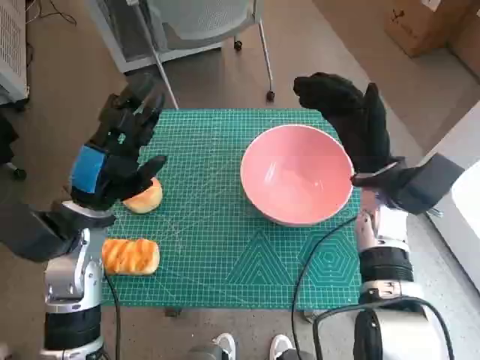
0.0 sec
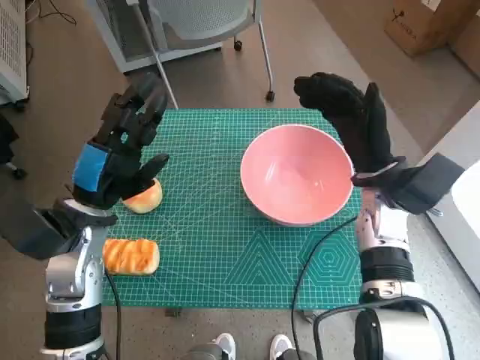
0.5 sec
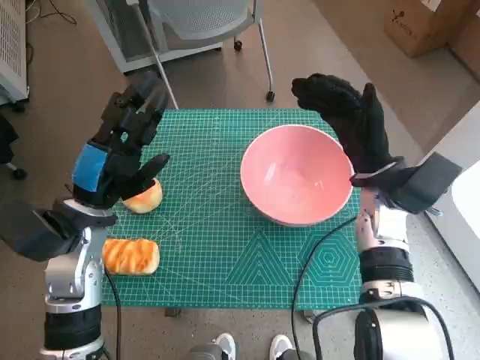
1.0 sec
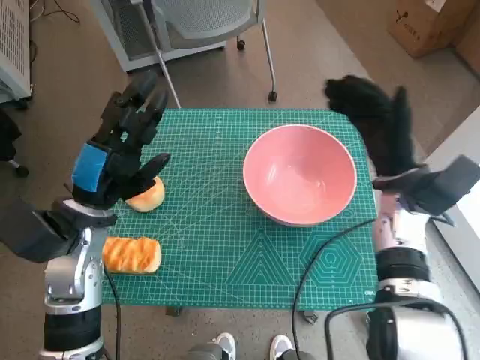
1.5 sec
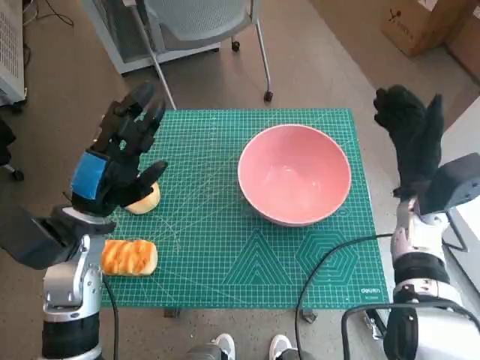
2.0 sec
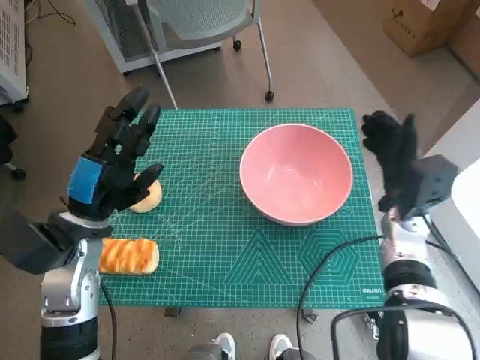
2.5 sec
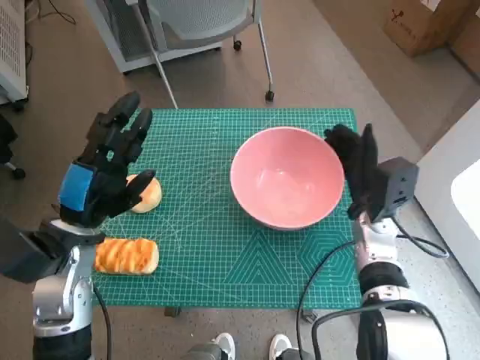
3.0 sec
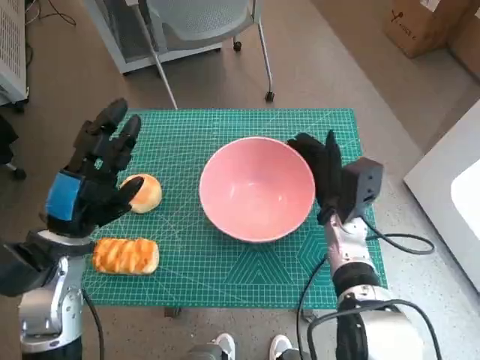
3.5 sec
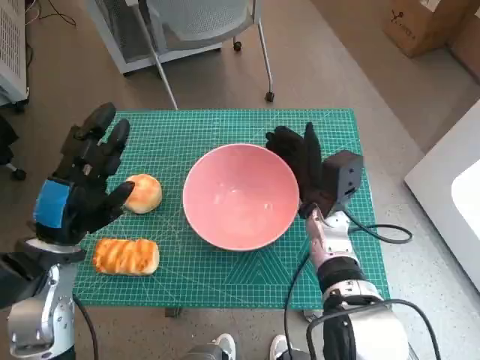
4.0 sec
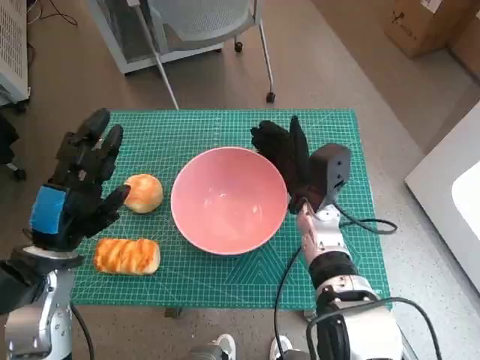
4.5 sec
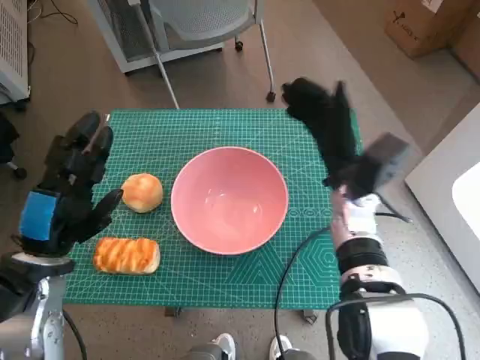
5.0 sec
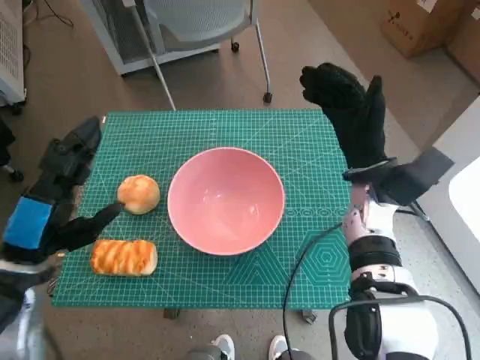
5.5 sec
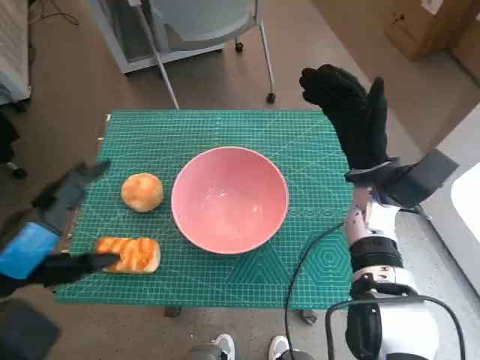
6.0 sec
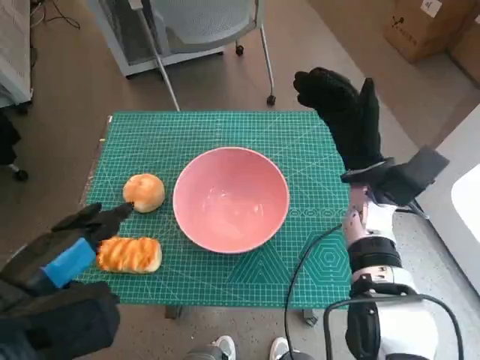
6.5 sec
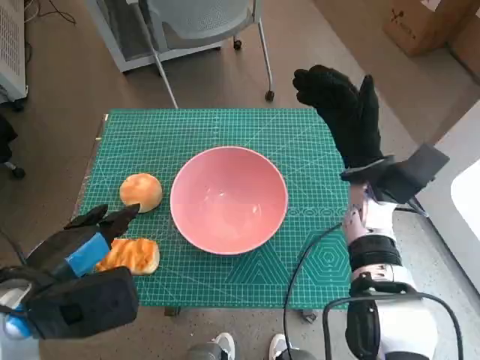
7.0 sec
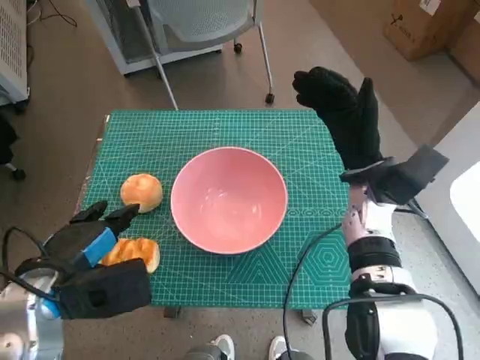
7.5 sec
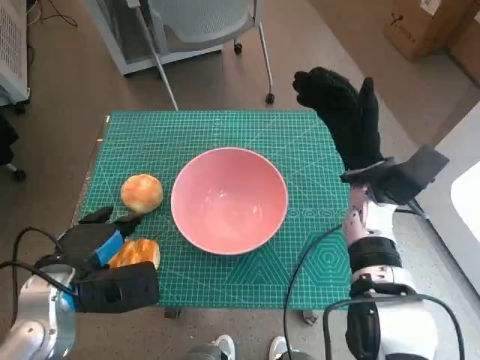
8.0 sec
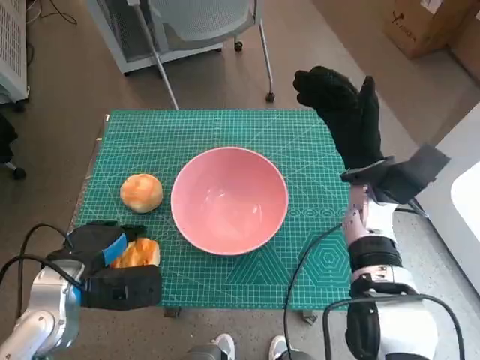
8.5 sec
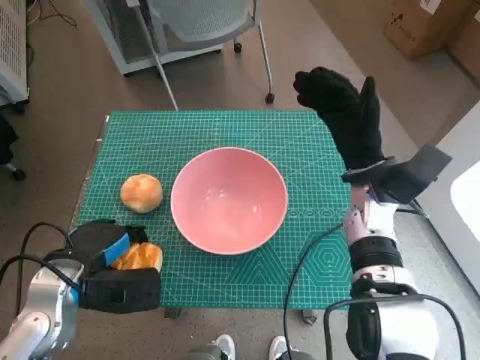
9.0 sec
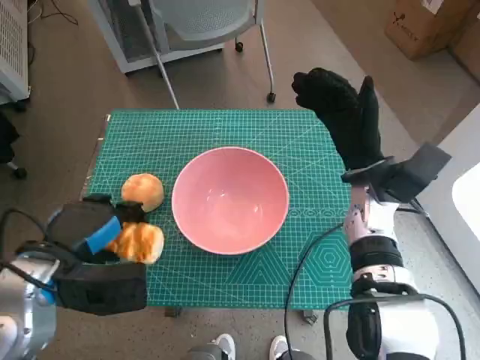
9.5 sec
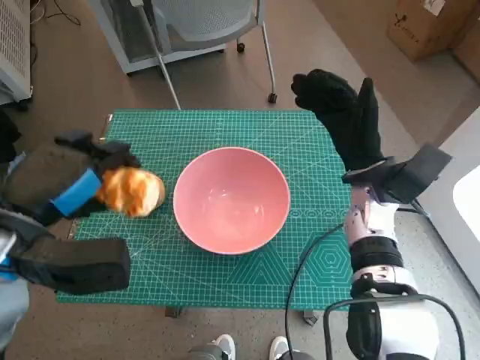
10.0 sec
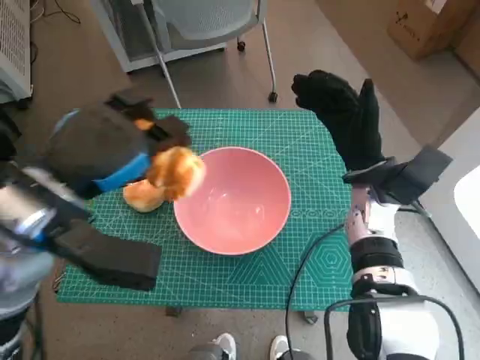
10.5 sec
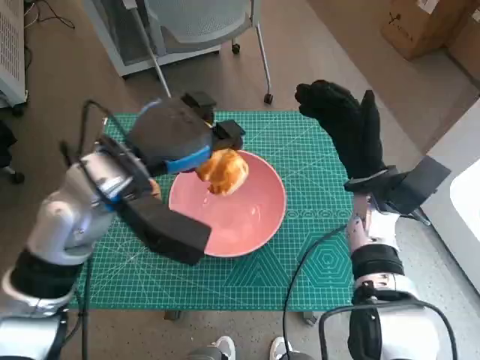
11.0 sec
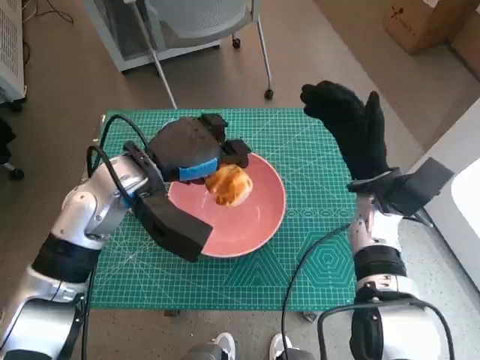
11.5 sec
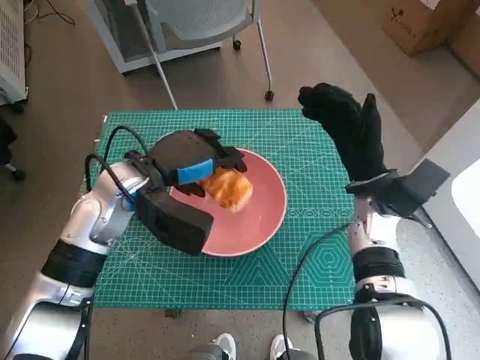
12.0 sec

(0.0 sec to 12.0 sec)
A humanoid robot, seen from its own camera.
Step, 0.0 sec - 4.5 sec: Move the pink bowl to the center of table with right hand.
Step, 5.0 sec - 8.5 sec: Grasp the long bread with left hand.
2.0 sec - 4.0 sec: The right hand moves to the left, roughly 10 cm.
4.0 sec - 6.0 sec: The right hand moves upward and to the right, roughly 10 cm; the left hand shifts about 10 cm backward and upward.
6.0 sec - 8.0 sec: The left hand is displaced downward and forward by approximately 10 cm.
8.0 sec - 10.0 sec: The left hand goes approximately 10 cm upward.
10.0 sec - 12.0 sec: The left hand moves forward and to the right, approximately 15 cm.

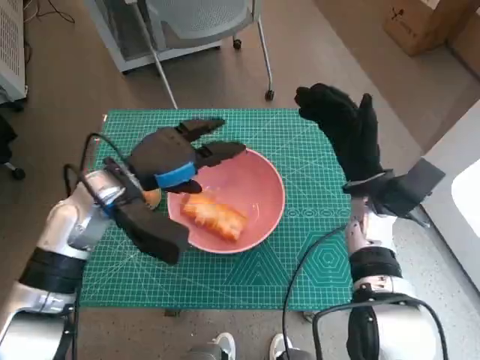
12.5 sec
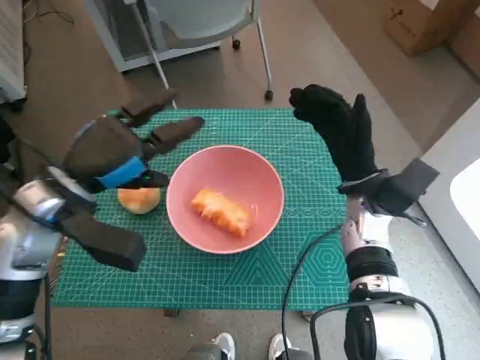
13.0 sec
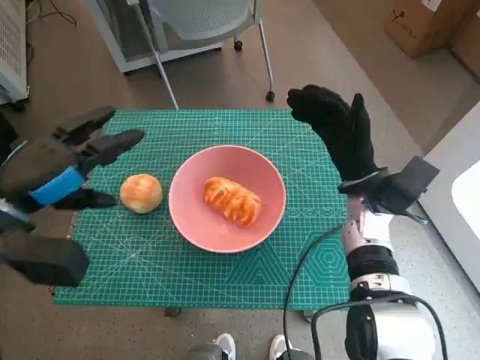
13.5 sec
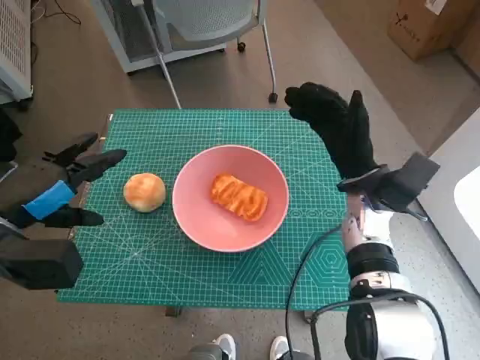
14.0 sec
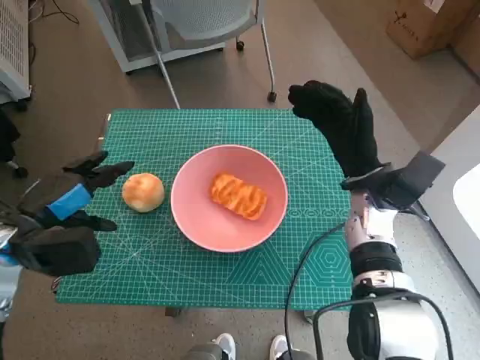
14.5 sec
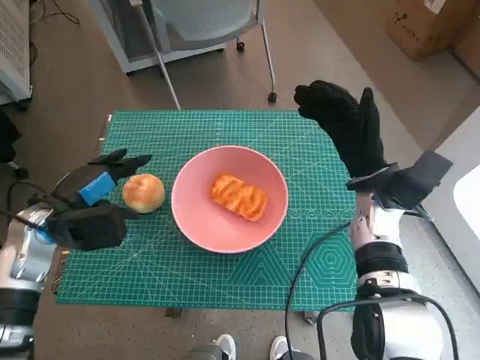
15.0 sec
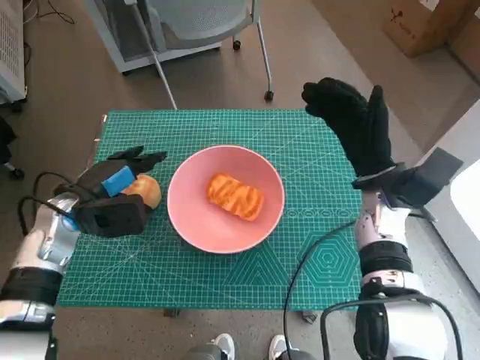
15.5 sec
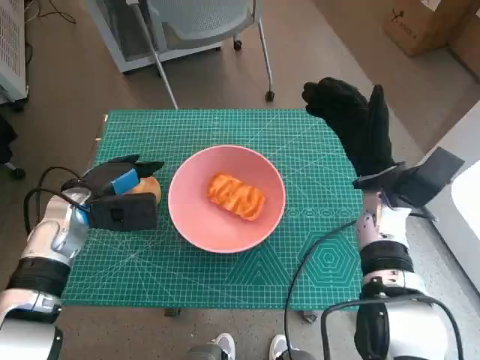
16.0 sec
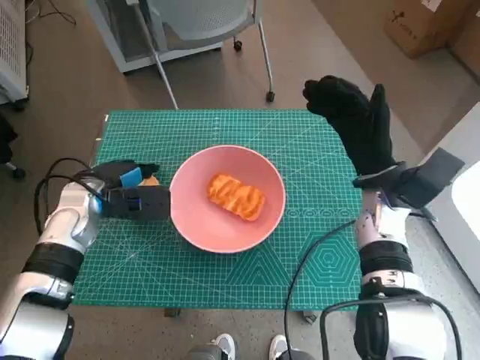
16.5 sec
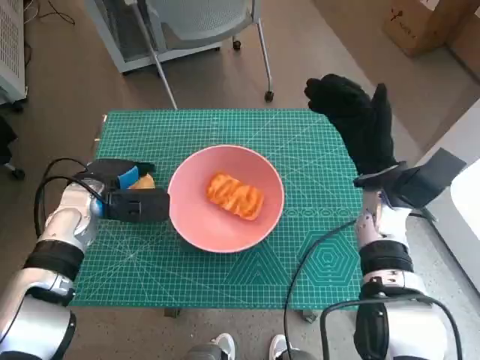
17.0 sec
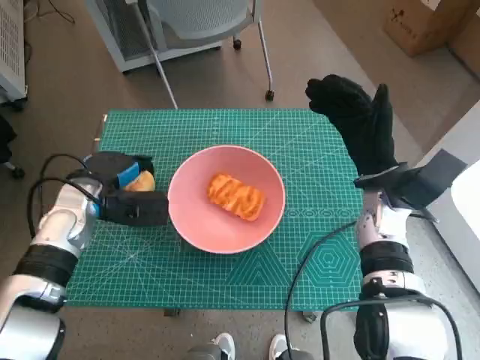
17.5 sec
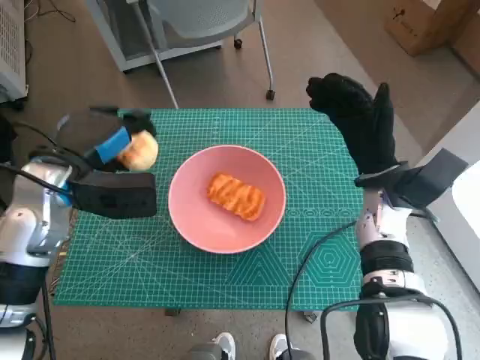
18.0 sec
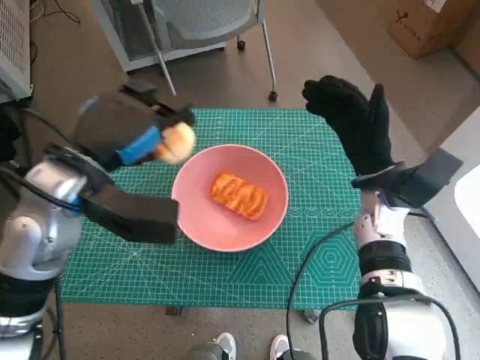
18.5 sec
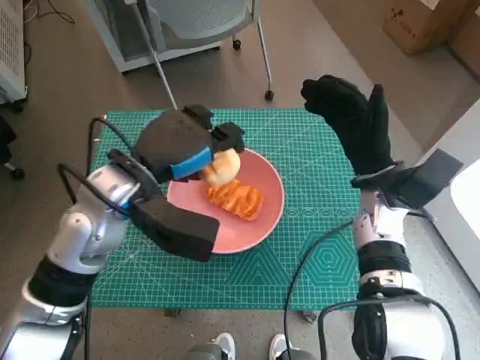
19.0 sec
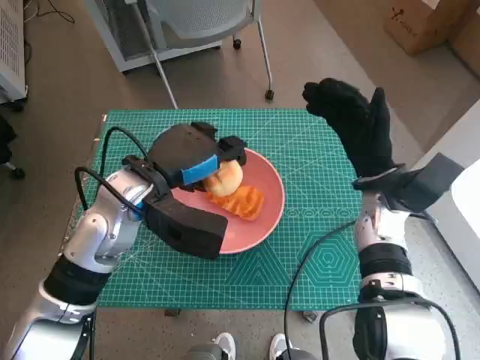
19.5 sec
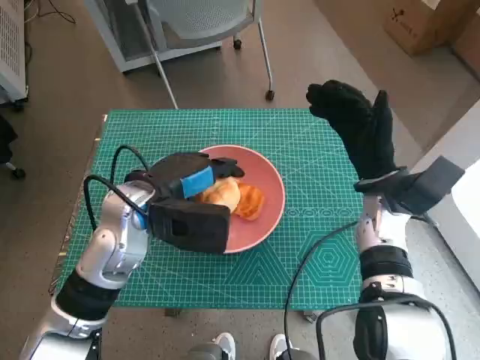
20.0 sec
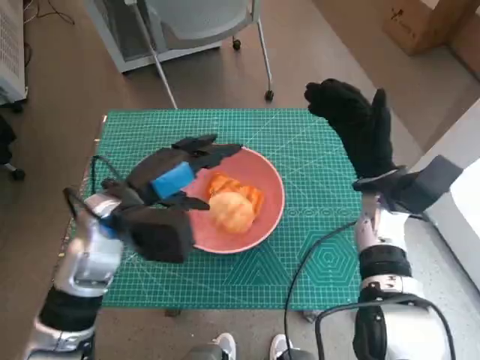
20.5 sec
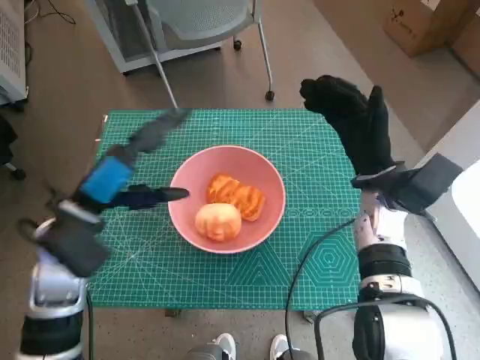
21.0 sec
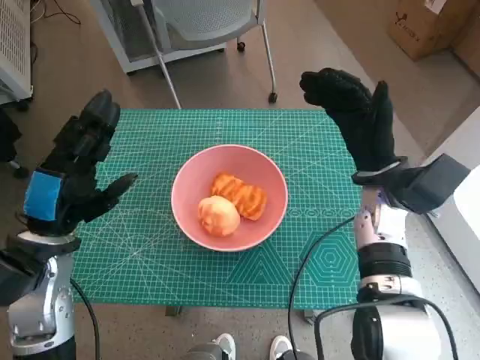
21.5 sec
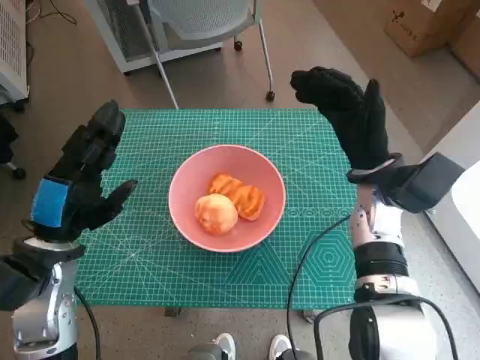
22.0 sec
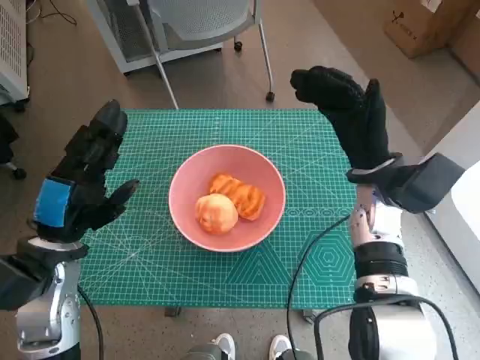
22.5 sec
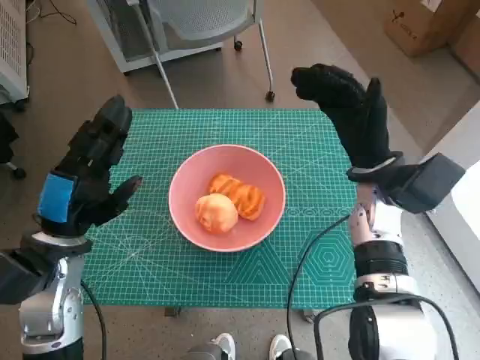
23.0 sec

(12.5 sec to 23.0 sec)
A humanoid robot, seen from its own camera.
Step, 12.5 sec - 16.5 sec: Grasp the round bread with left hand.
Step, 17.0 sec - 20.5 sec: Place the round bread in pink bowl with left hand.
12.5 sec - 14.5 sec: The left hand shifts approximately 15 cm to the left and backward.
14.5 sec - 16.5 sec: The left hand travels forward and to the right by about 10 cm.
16.5 sec - 19.0 sec: The left hand moves to the right and upward, about 15 cm.
19.0 sec - 21.0 sec: The left hand shifts about 5 cm to the left.

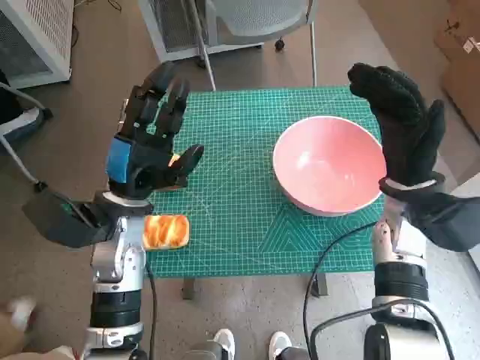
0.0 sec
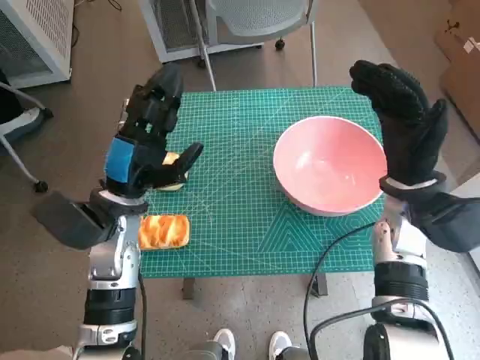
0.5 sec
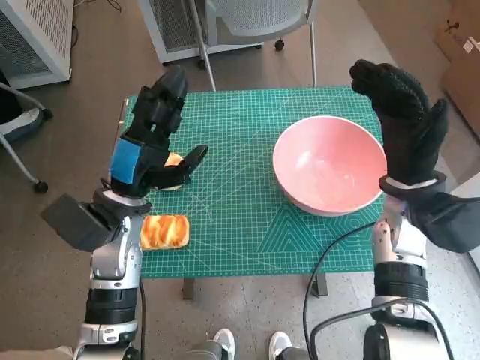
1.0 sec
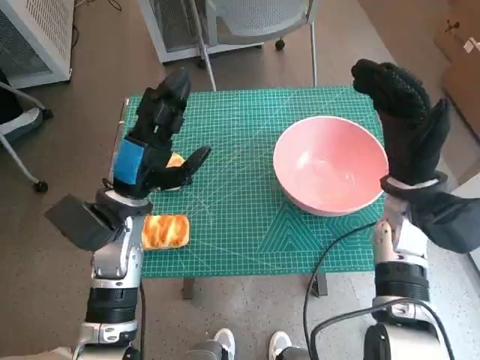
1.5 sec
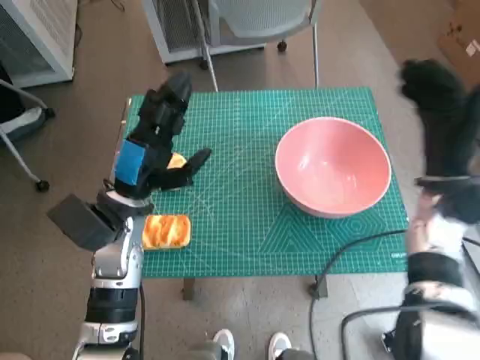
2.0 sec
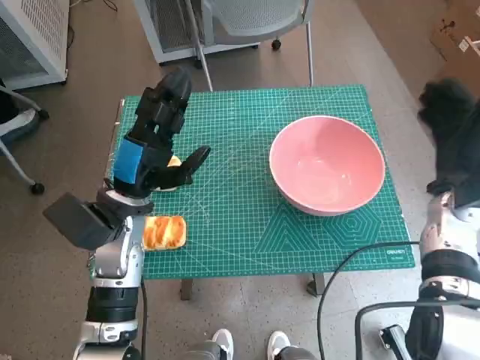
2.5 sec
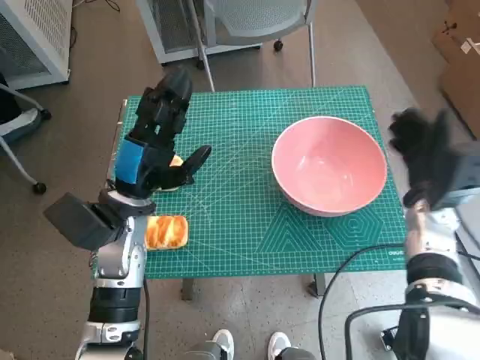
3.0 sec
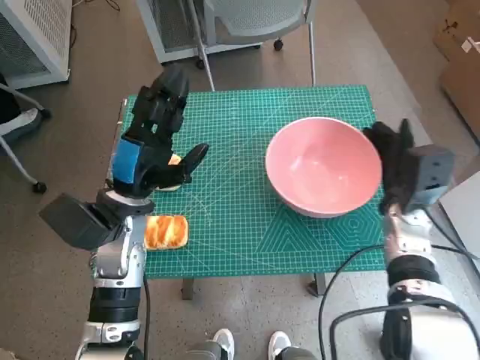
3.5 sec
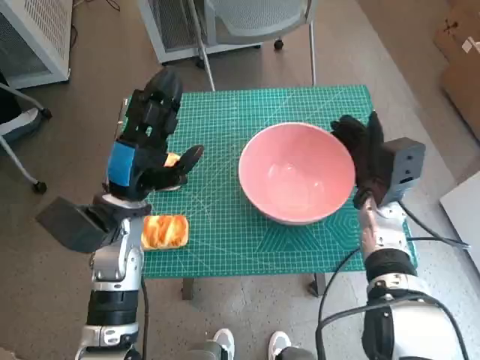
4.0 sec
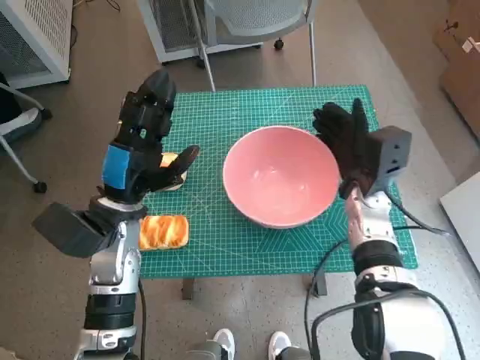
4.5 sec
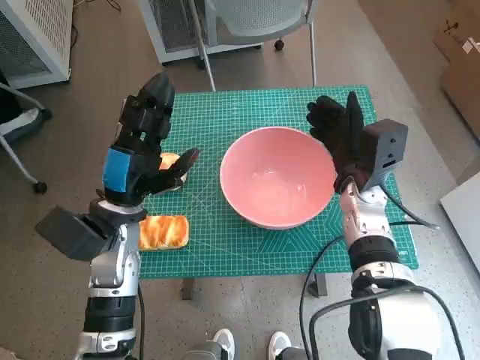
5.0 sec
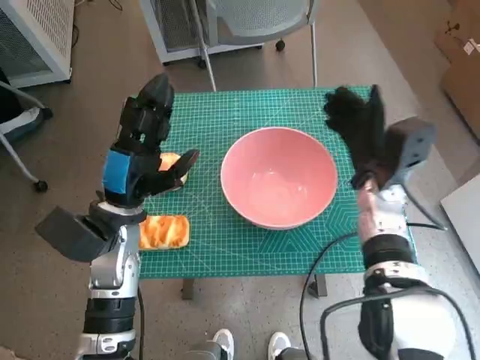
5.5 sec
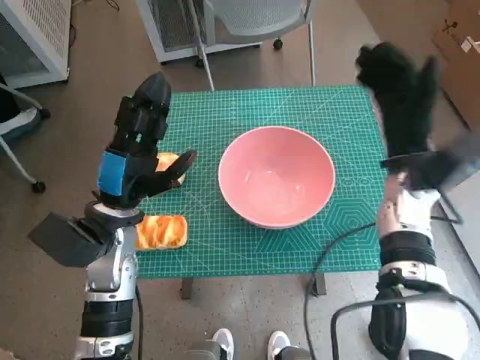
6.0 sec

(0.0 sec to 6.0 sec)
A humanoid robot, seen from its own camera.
Step, 0.0 sec - 5.0 sec: Move the pink bowl to the center of table with right hand.
2.0 sec - 4.0 sec: The right hand goes roughly 10 cm downward and to the left.
4.0 sec - 6.0 sec: The right hand travels upward by roughly 5 cm.
